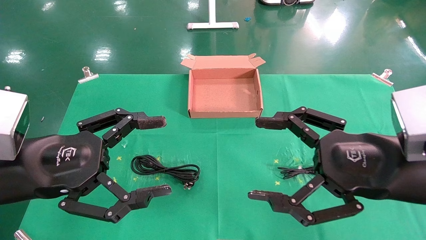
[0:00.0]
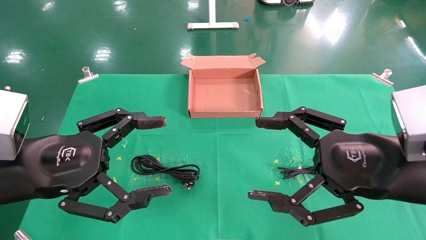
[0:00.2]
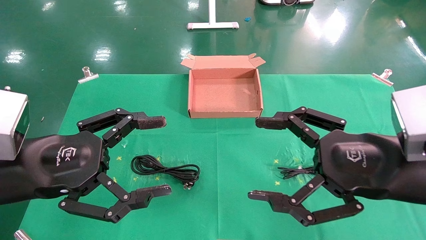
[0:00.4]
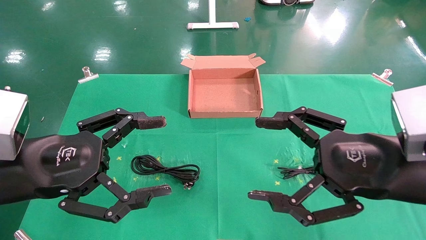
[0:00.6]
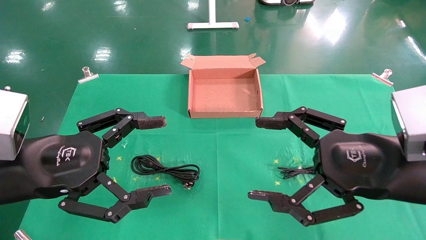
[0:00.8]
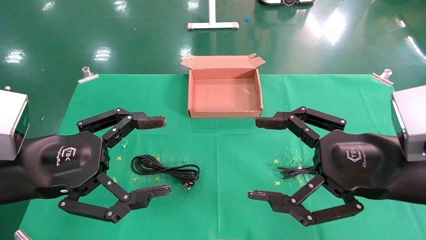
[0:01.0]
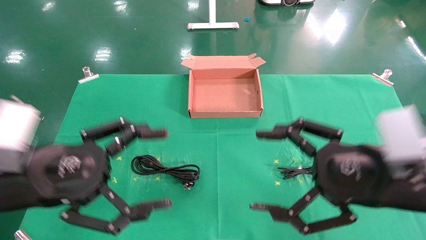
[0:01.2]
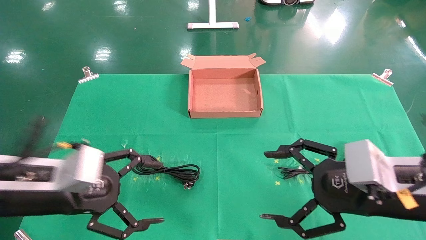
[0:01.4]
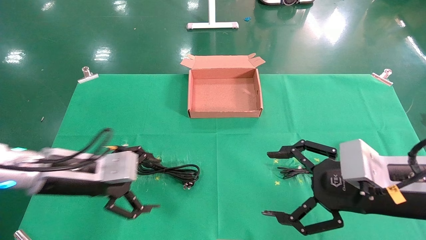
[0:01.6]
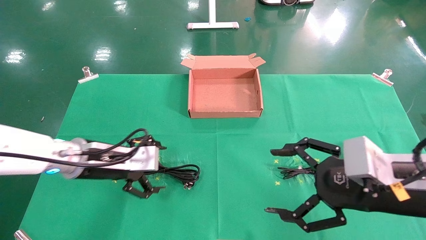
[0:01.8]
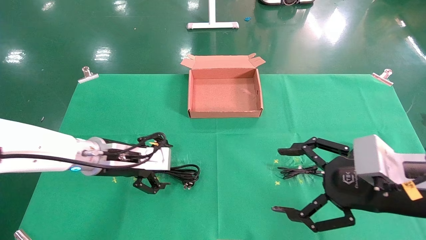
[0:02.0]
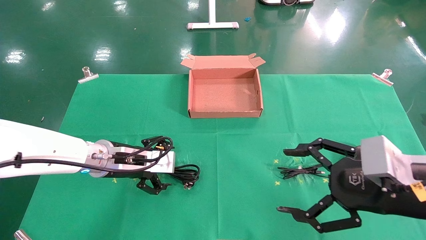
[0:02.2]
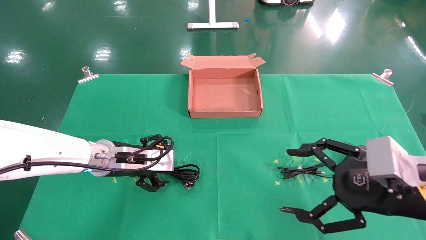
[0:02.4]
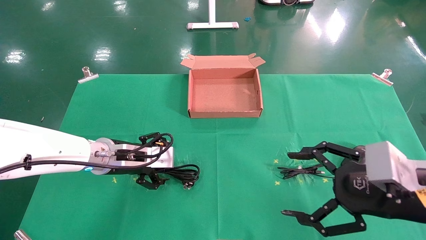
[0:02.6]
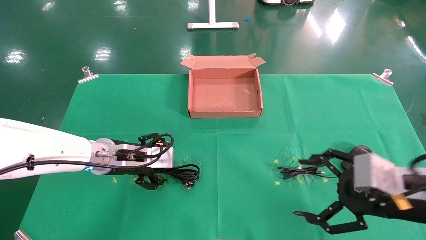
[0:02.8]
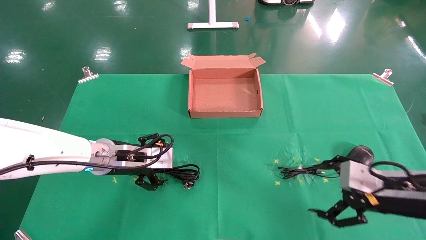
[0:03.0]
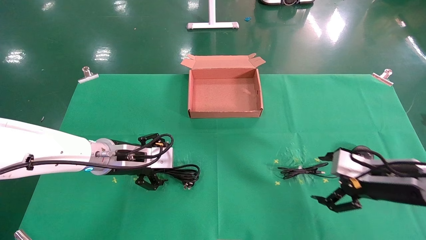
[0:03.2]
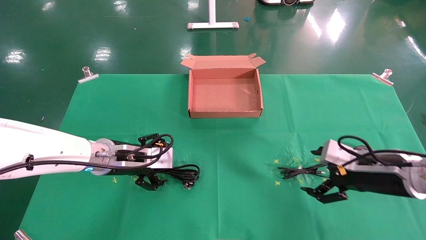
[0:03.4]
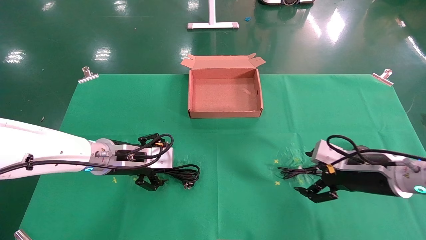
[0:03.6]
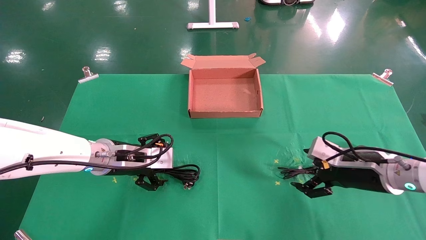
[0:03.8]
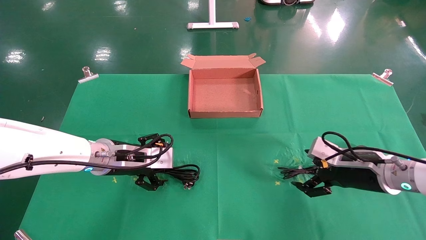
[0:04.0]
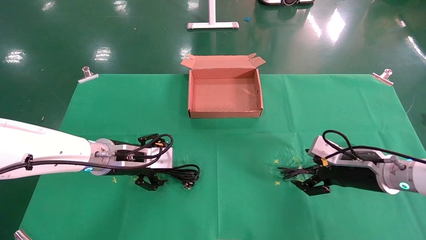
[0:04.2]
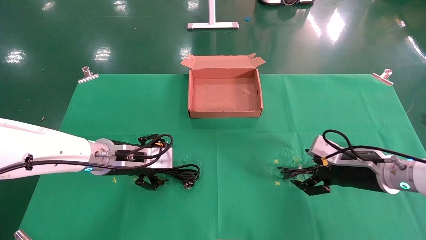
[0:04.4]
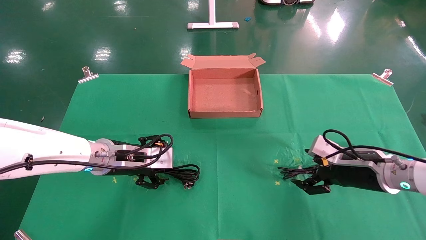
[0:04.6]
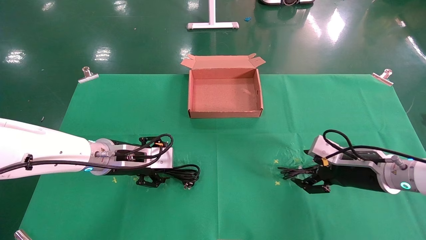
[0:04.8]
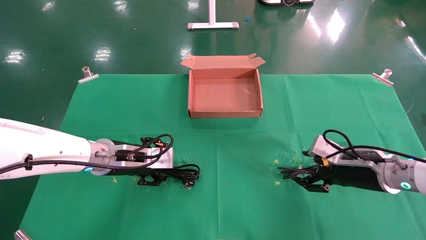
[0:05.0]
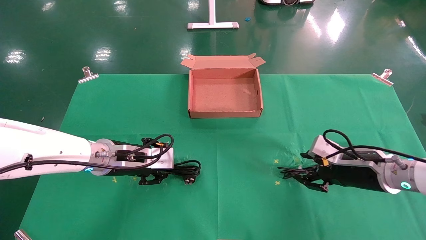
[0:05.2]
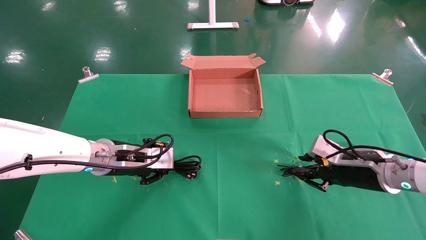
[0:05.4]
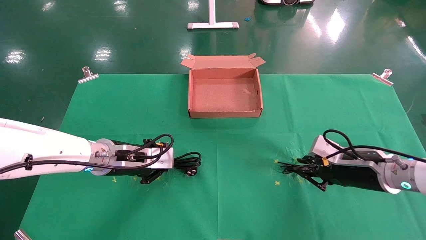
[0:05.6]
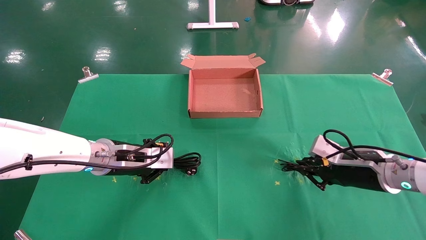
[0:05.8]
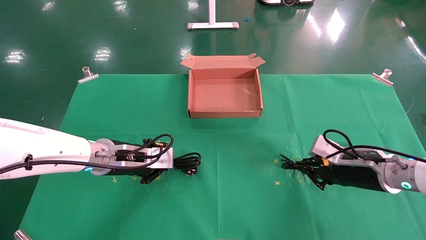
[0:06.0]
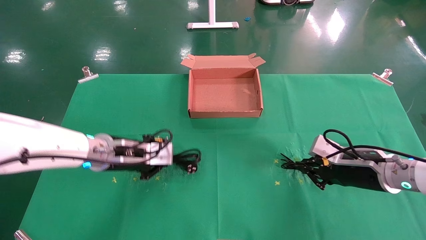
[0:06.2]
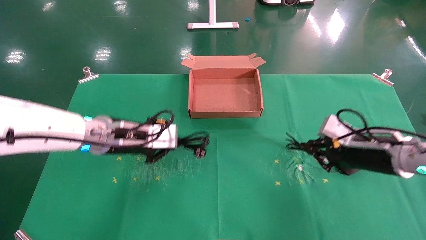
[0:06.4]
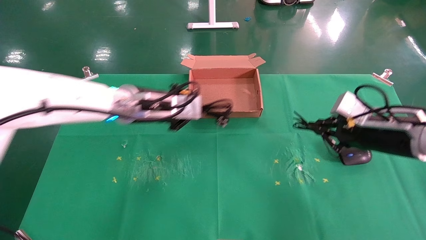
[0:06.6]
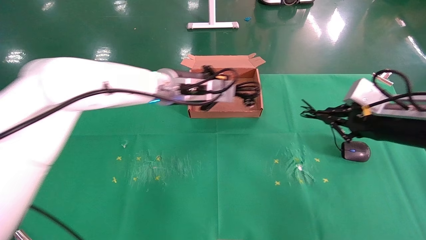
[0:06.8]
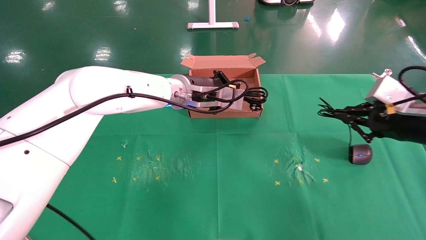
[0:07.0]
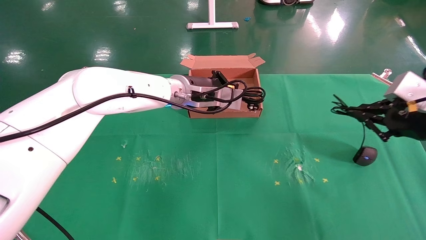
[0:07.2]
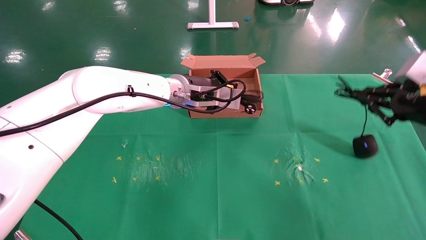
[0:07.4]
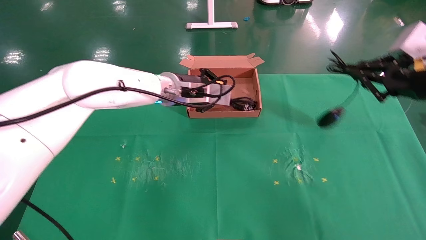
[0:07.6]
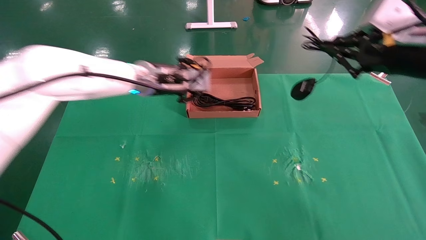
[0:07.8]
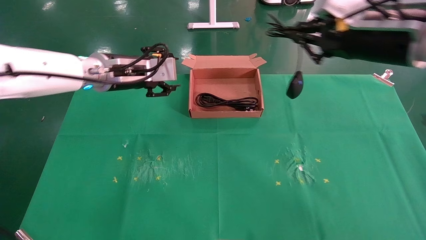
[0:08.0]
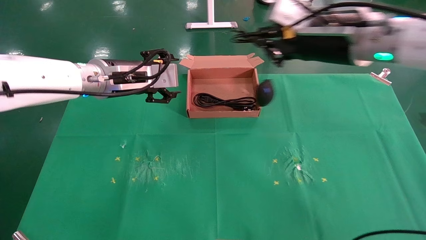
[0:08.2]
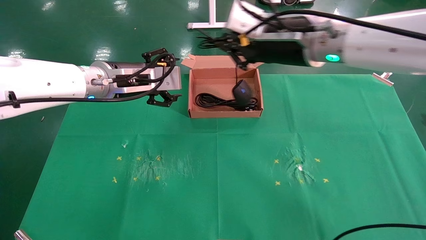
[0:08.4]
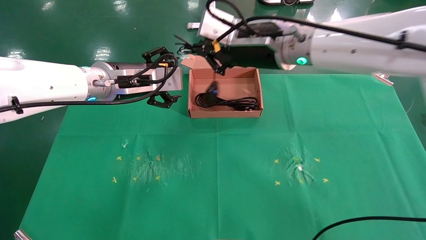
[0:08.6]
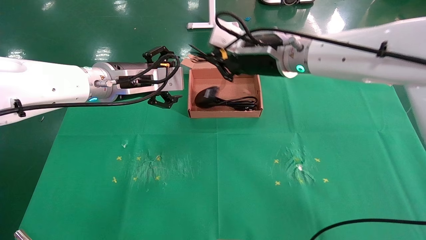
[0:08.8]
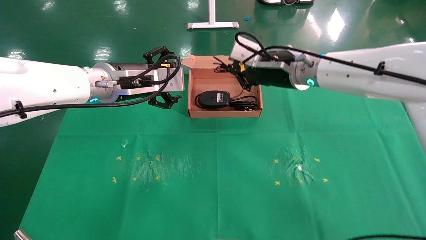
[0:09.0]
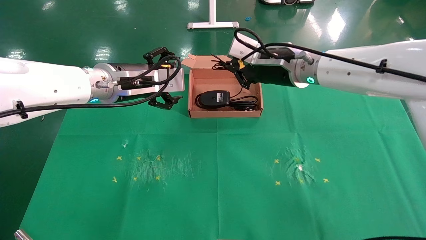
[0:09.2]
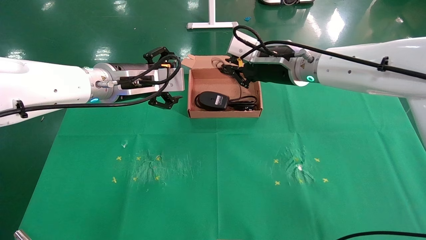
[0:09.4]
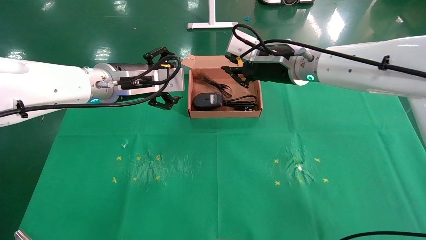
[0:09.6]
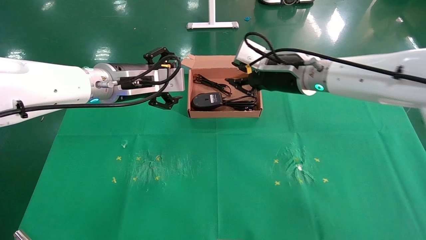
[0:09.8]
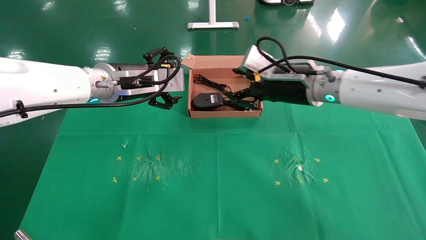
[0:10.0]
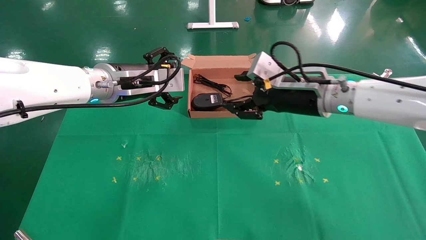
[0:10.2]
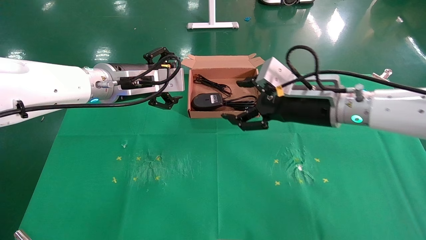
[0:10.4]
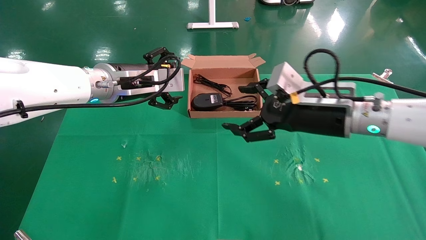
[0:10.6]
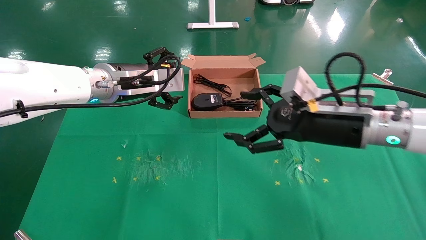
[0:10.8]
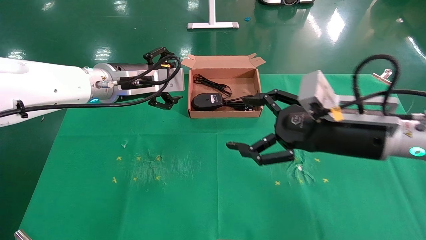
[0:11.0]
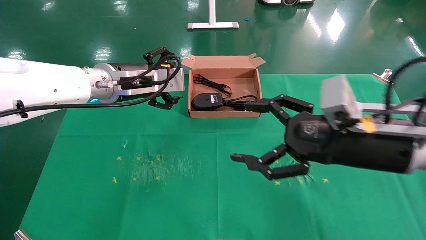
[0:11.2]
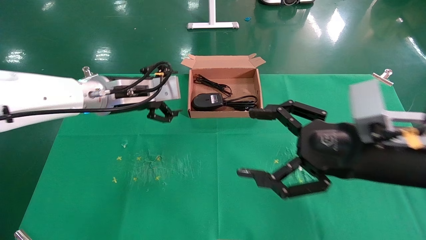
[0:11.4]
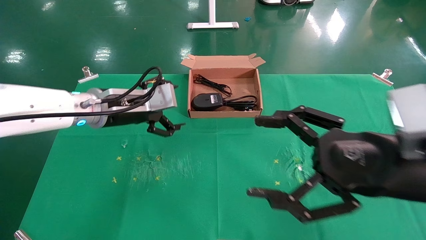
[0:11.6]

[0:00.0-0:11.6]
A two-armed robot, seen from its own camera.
Task of the whole recording: grasp data cable left put into box grasp mouse right put into box.
Step, 0:01.4 to 0:06.2: Simultaneously pick up the mouse and power cord from the accessory packaging area.
Step, 0:06.4 to 0:09.4: Place the mouse and power cord into the box.
0:00.0 to 0:01.4: The left gripper is displaced forward and downward by approximately 5 cm.
0:01.4 to 0:02.8: The right gripper travels to the right by approximately 5 cm, while the left gripper moves forward and to the right, some 15 cm.
0:02.8 to 0:04.4: The right gripper heads forward, covering approximately 10 cm.
0:04.4 to 0:05.8: The left gripper closes its fingers; the right gripper closes its fingers.
0:05.8 to 0:07.2: The left gripper shifts roughly 20 cm to the right, upward and forward. The right gripper moves upward, to the right and backward, about 15 cm.
0:07.2 to 0:08.8: The right gripper heads to the left and forward, covering roughly 30 cm. The left gripper moves to the left and backward, roughly 15 cm, and opens its fingers.
0:08.8 to 0:10.2: The right gripper is displaced downward and to the right by roughly 10 cm, and opens up.
0:10.2 to 0:11.6: The right gripper moves backward and to the right, roughly 20 cm, and opens its fingers. The left gripper ends up some 5 cm from where it was.

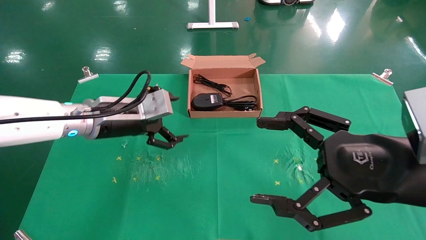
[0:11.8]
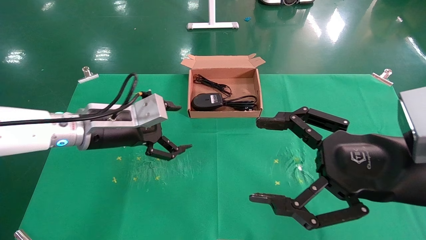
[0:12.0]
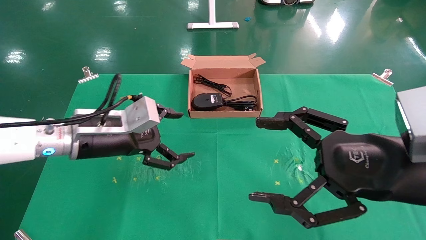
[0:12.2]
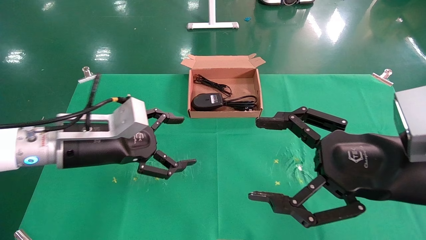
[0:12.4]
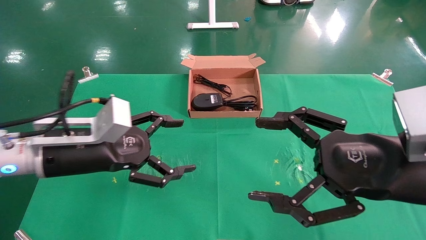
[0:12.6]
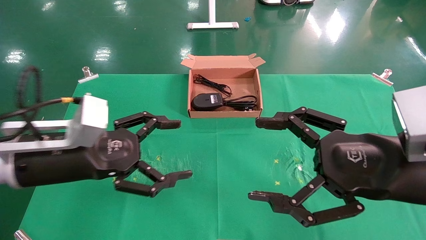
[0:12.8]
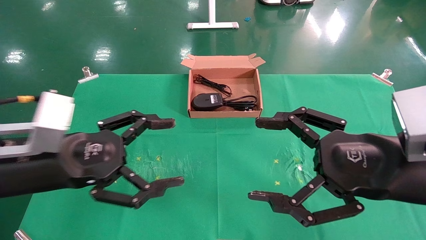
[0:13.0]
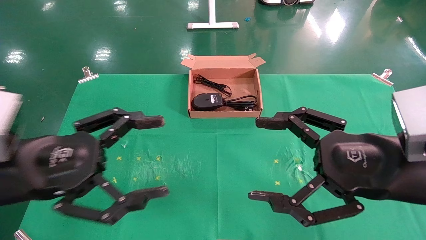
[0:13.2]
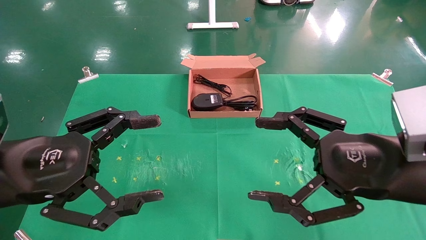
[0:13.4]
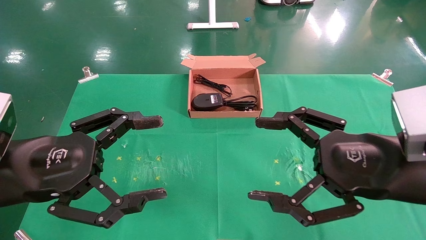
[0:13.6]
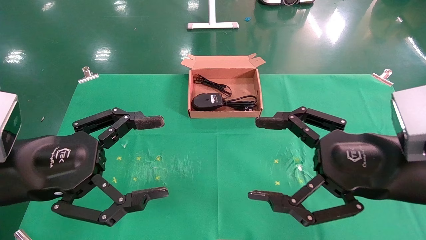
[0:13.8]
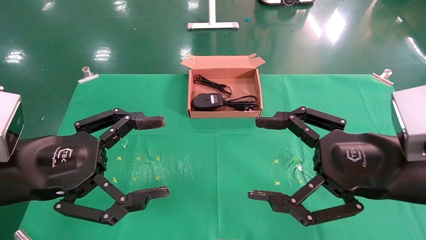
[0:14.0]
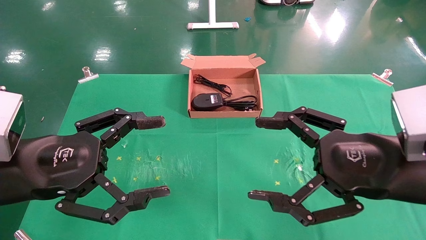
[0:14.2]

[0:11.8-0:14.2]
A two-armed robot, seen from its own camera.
Task of the whole recording: grasp data cable left put into box grasp mouse right put into box.
0:11.8 to 0:13.0: The left gripper is displaced backward by roughly 15 cm.
0:13.0 to 0:14.2: The grippers move only a little.
